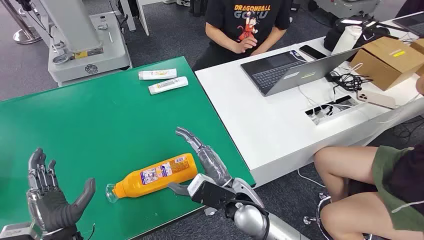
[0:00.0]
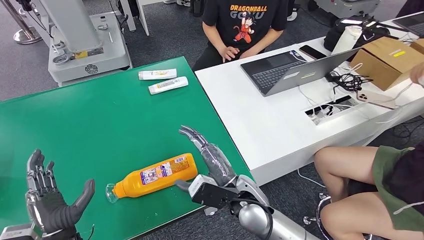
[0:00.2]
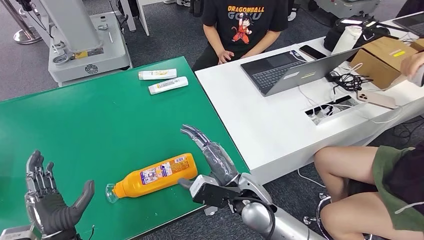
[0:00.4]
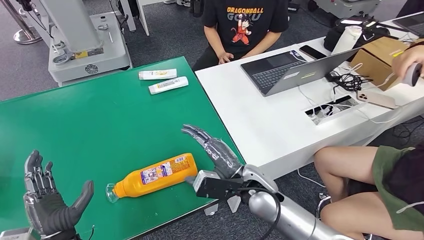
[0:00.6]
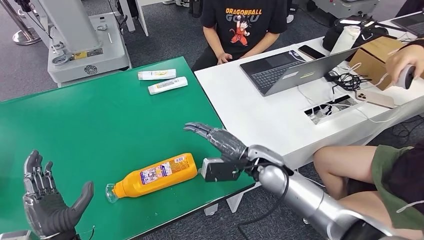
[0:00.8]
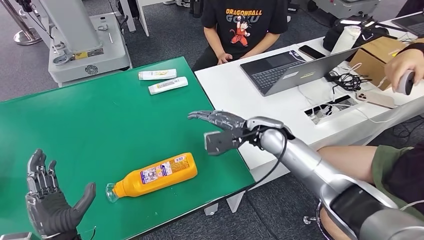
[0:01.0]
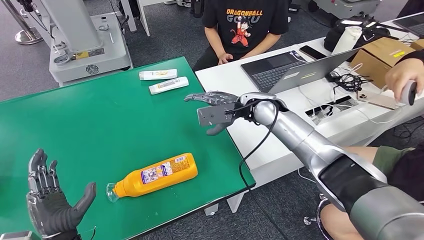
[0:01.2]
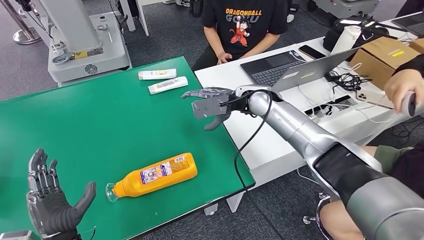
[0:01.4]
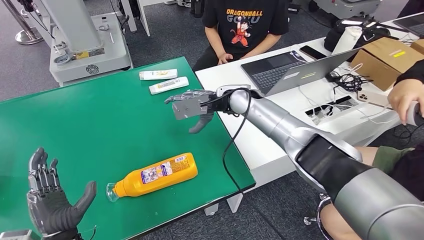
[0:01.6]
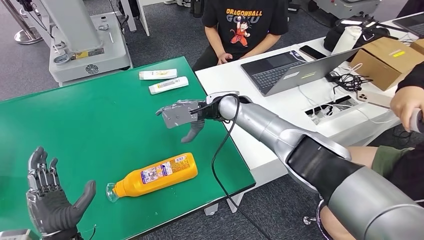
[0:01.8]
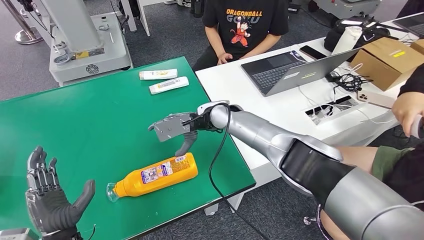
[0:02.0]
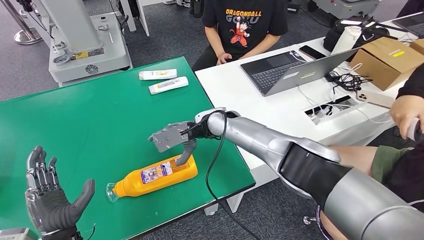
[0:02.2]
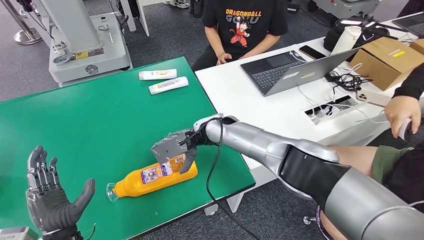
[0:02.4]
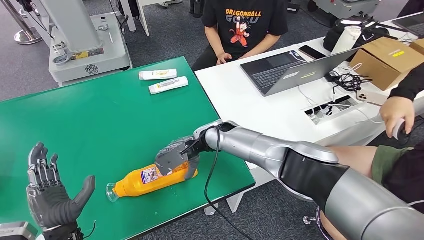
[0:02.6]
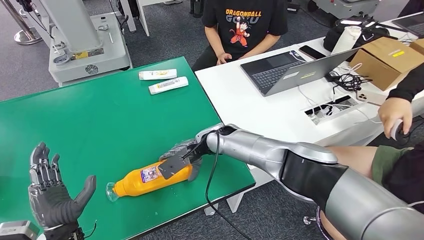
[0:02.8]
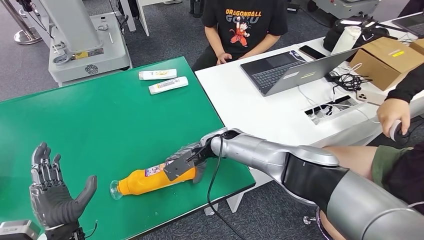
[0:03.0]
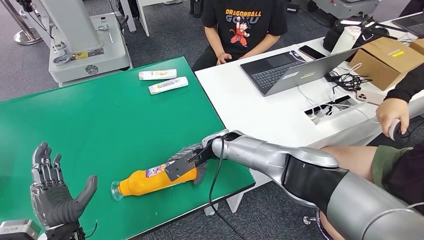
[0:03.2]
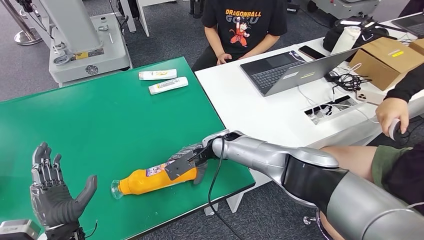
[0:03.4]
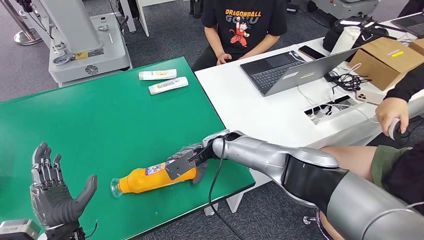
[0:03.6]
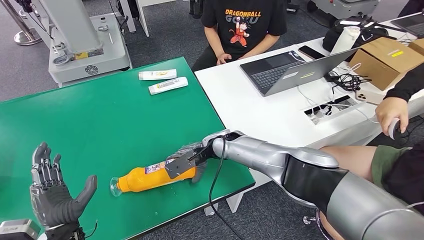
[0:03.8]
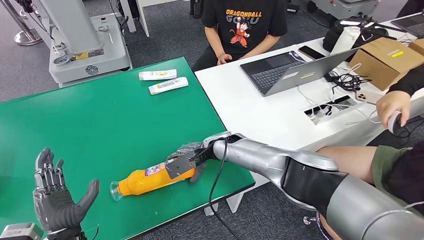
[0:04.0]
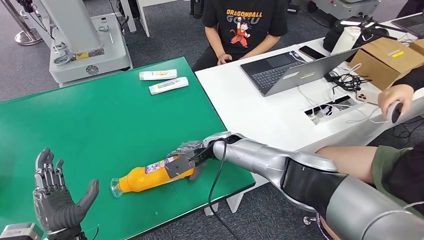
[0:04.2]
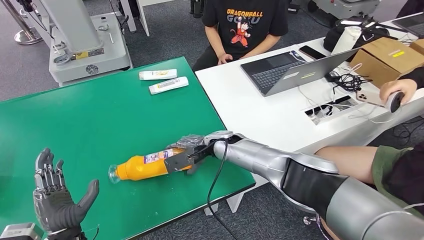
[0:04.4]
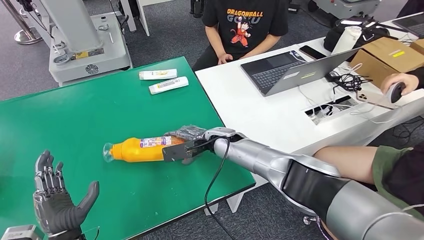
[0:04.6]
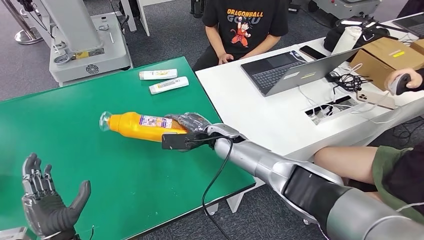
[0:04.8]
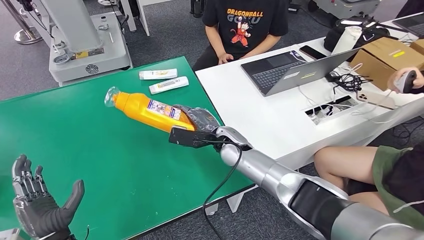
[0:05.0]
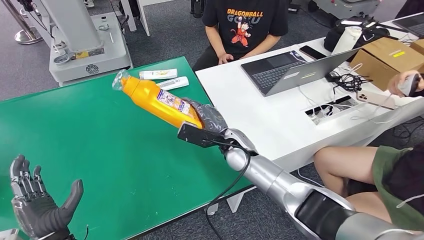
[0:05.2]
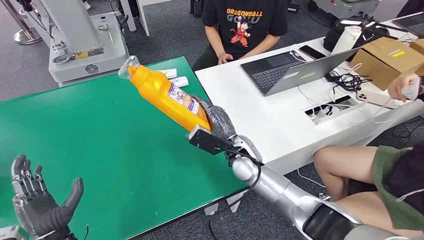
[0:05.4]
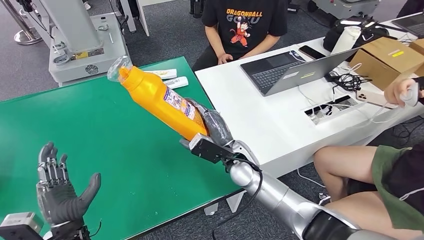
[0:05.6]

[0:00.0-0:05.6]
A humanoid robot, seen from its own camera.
Step, 0:00.0 to 0:05.6: Pick up the bottle from the table.
0:02.8 to 0:04.2: There are only small adjustments of the hands.
0:04.2 to 0:05.6: The right hand shifts roughly 10 cm backward.
